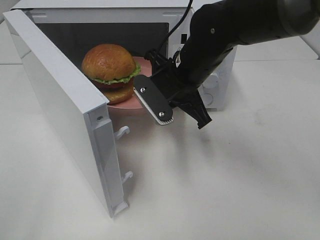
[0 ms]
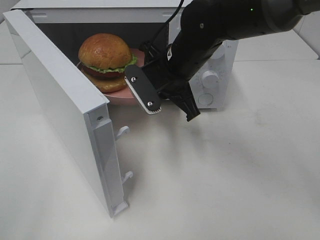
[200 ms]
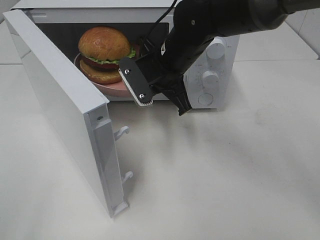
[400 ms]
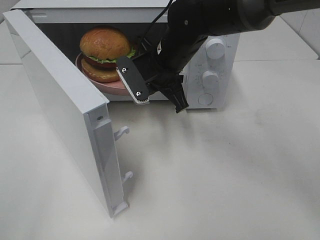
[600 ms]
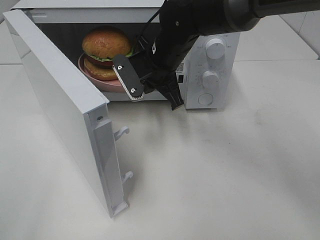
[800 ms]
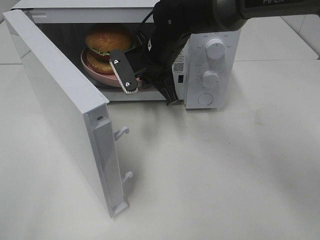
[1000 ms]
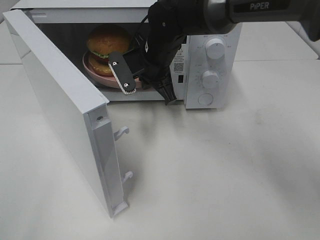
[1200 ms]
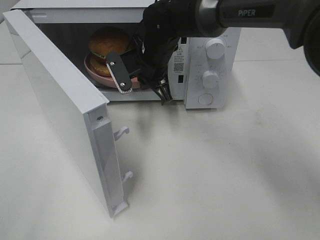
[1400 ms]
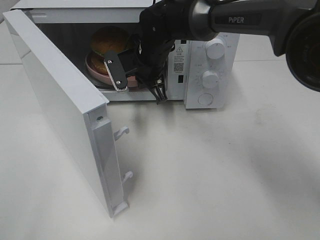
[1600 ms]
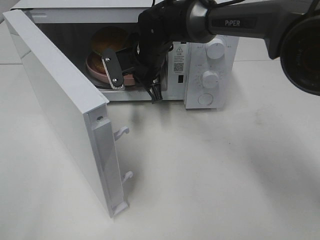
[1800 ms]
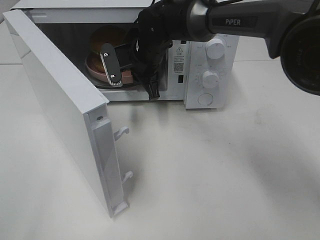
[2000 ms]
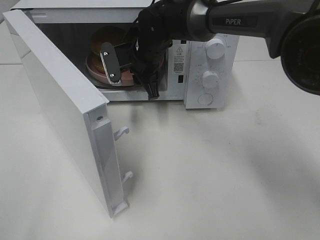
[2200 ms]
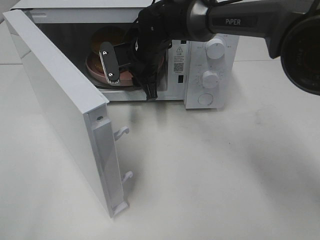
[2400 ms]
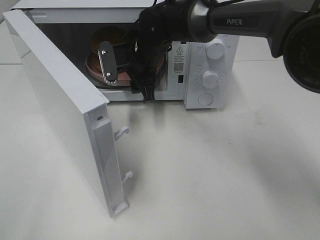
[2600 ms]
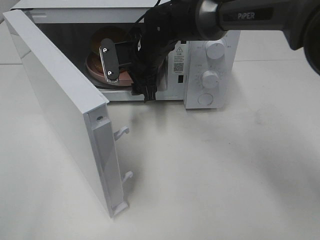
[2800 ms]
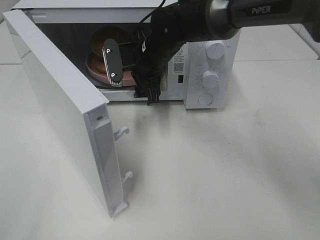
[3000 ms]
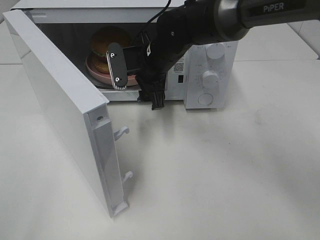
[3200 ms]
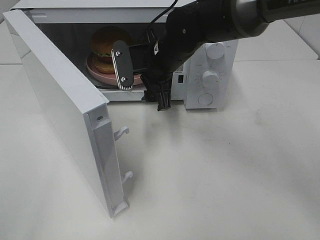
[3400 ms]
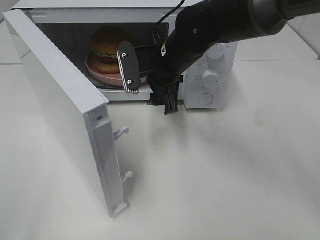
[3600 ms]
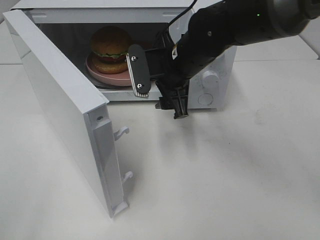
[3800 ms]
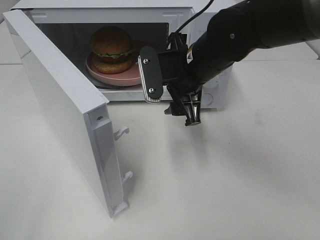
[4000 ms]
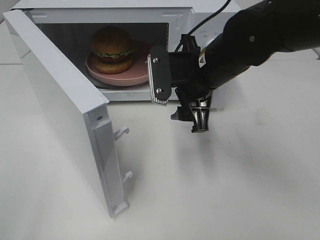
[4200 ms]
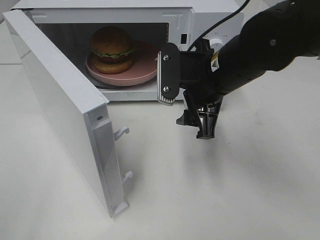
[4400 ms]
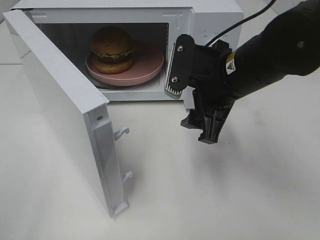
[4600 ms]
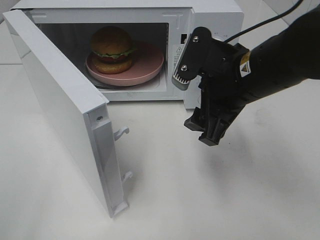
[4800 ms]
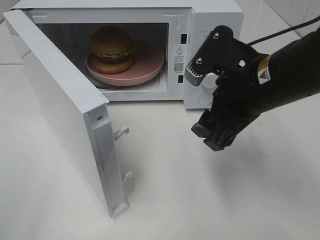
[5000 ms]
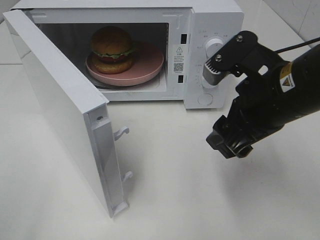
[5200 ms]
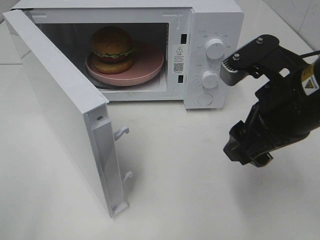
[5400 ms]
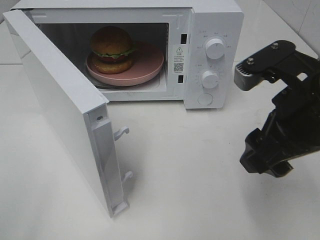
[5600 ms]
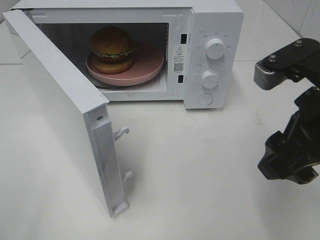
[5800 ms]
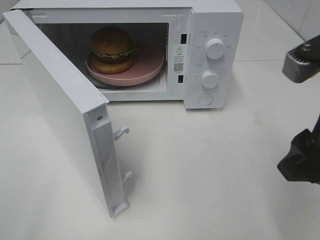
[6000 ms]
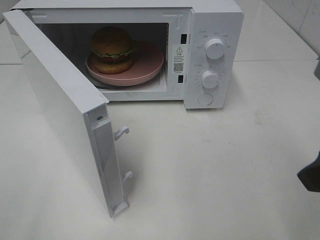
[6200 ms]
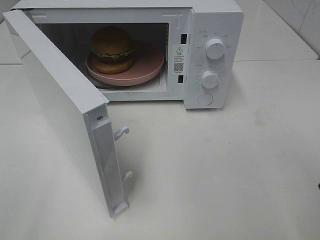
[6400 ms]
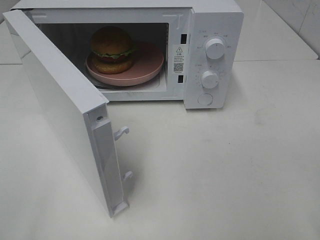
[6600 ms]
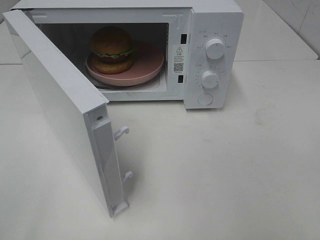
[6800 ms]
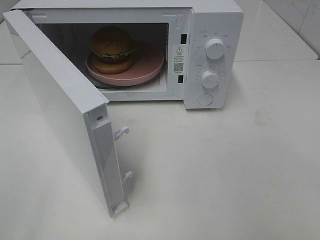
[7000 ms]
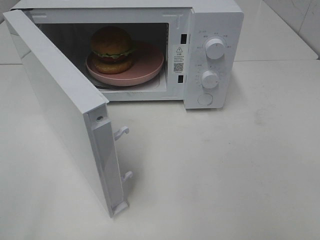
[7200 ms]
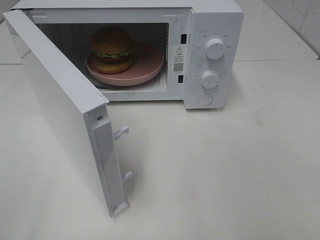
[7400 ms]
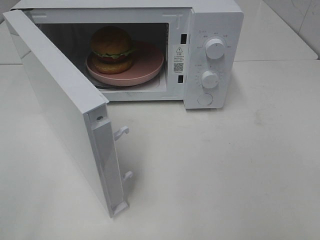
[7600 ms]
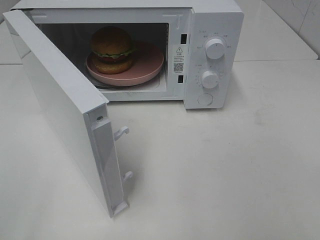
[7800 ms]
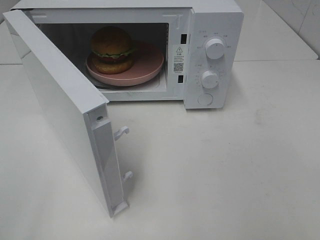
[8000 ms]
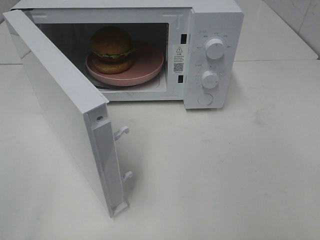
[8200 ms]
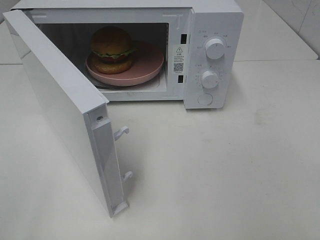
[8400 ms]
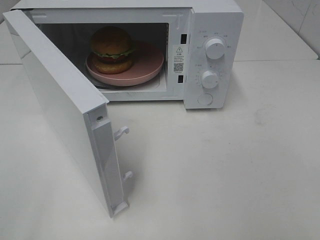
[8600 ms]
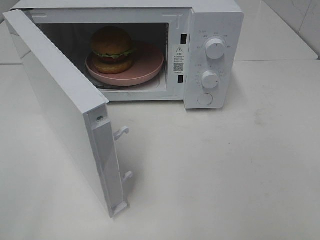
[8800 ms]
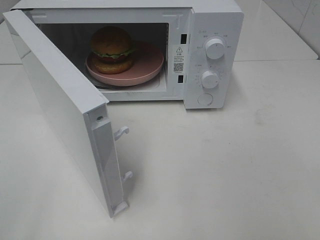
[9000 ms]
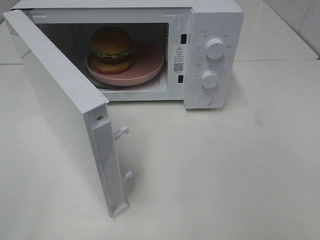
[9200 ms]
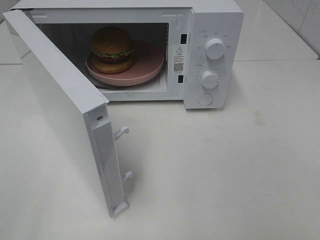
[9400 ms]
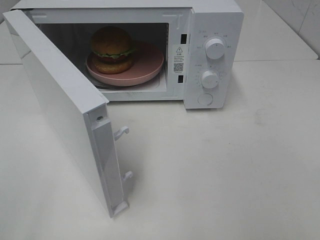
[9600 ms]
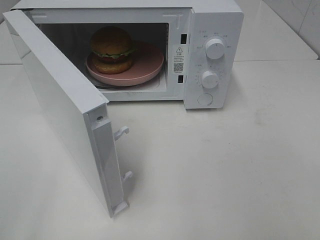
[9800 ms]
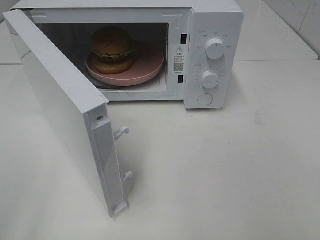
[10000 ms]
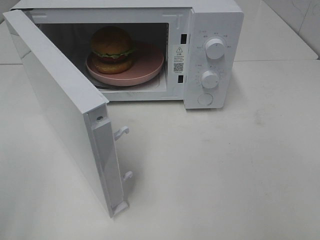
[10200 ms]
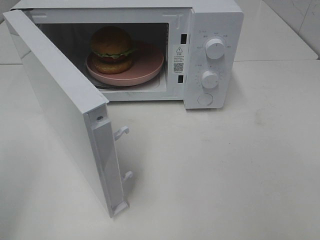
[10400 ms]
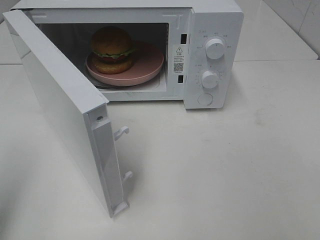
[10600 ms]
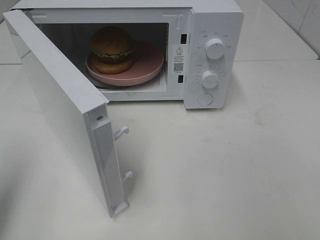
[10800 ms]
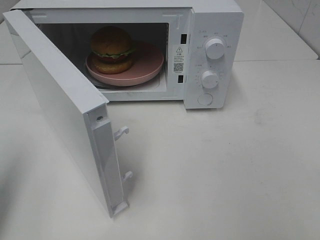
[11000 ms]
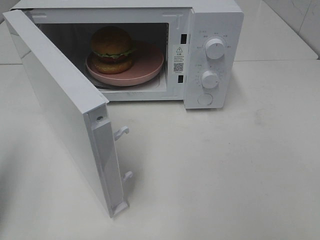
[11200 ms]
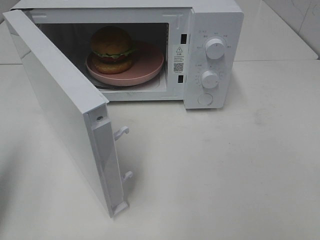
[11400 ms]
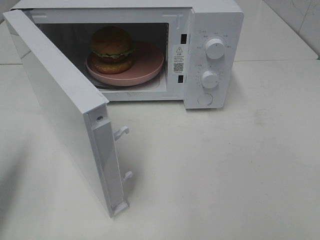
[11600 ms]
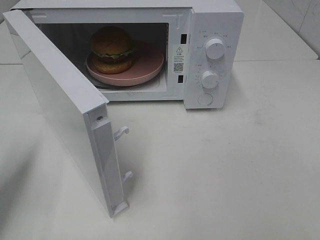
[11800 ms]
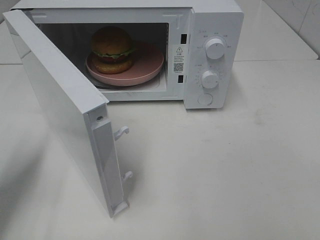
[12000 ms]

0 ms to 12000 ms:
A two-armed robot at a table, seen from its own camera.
Task of the whole recording: Heat the burger.
Step, 0 ms to 2200 ms: Right hand: place the plate in the microwave.
0 ms to 1600 ms: The right gripper travels forward and to the left by some 10 cm.
1600 ms to 3000 ms: The right gripper opens.
3000 ms to 4400 ms: The right gripper moves backward and to the right, some 15 cm.
4400 ms to 6000 ms: The right gripper shifts roughly 20 cm backward, to the right and upward.
6000 ms to 7600 ms: The right gripper heads backward and to the right, covering about 20 cm.
7600 ms to 9000 ms: Both grippers stay about where they are.
10400 ms to 12000 ms: The left gripper heads forward and downward, covering about 15 cm, and closes its fingers.

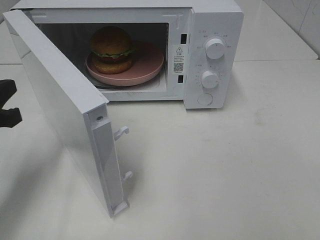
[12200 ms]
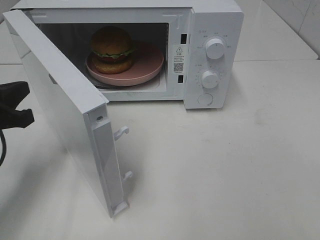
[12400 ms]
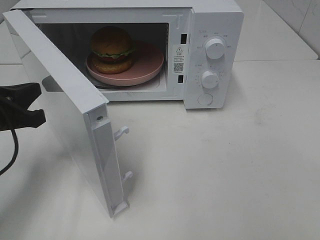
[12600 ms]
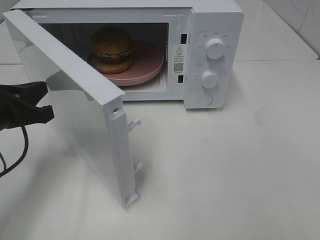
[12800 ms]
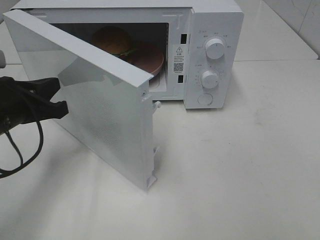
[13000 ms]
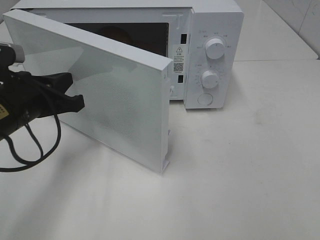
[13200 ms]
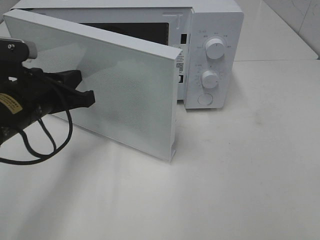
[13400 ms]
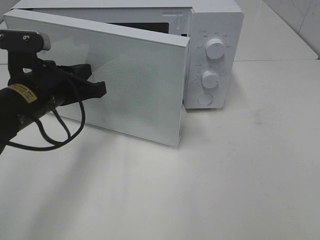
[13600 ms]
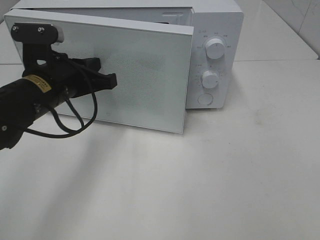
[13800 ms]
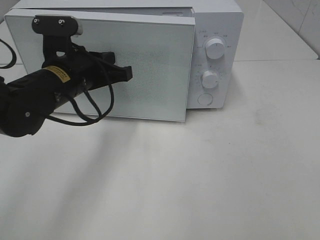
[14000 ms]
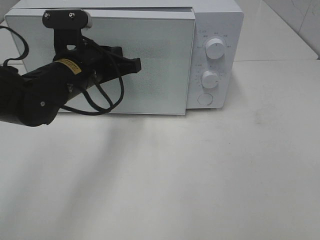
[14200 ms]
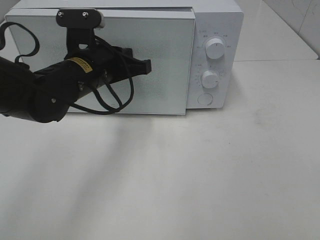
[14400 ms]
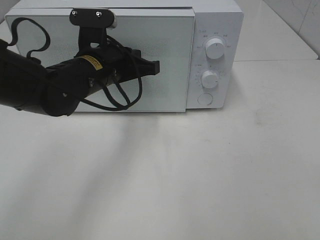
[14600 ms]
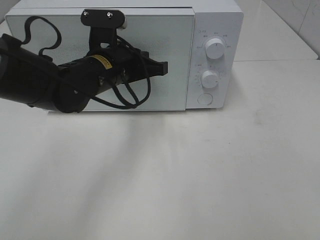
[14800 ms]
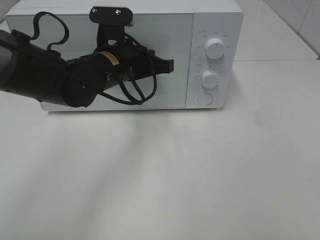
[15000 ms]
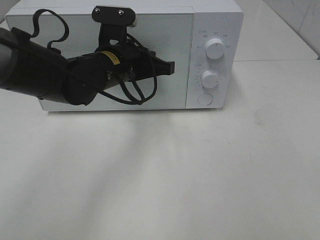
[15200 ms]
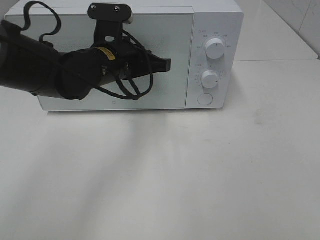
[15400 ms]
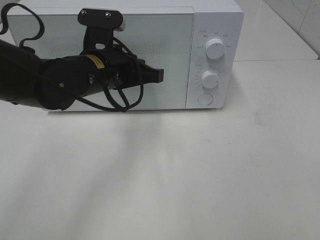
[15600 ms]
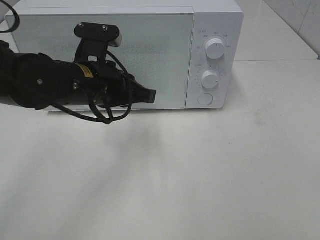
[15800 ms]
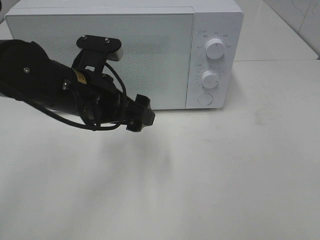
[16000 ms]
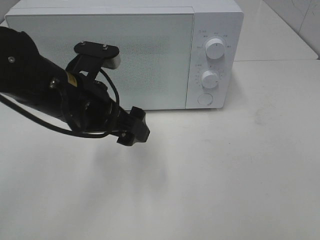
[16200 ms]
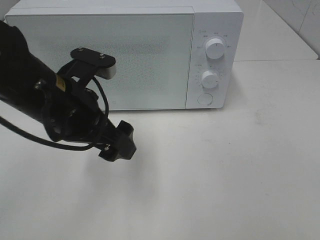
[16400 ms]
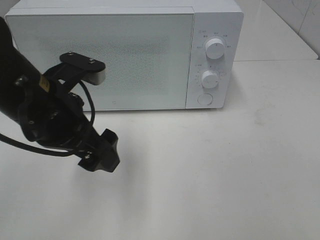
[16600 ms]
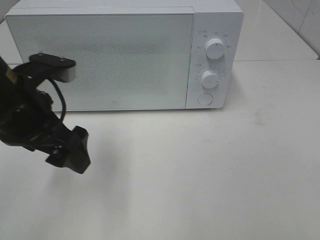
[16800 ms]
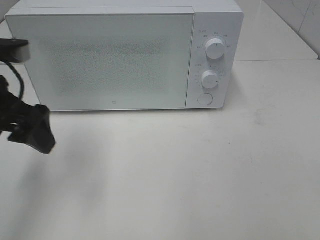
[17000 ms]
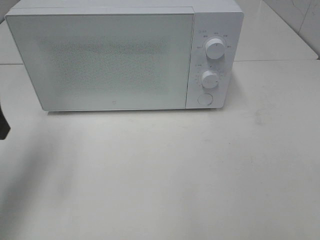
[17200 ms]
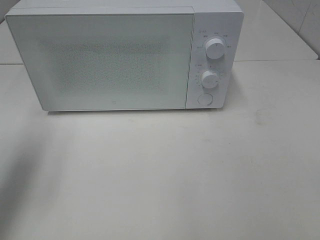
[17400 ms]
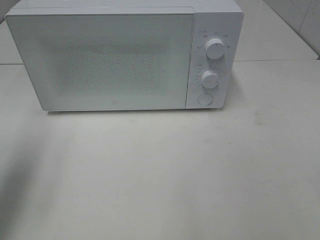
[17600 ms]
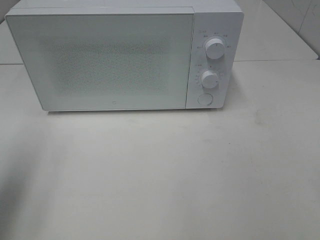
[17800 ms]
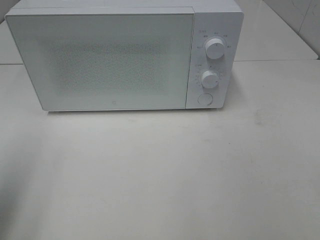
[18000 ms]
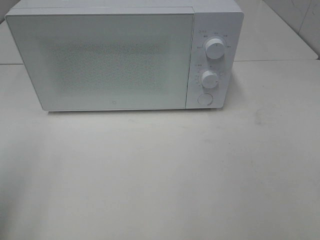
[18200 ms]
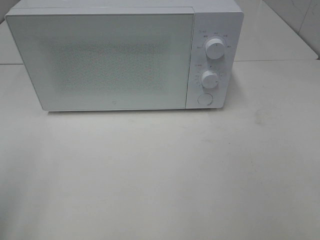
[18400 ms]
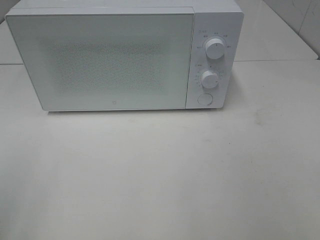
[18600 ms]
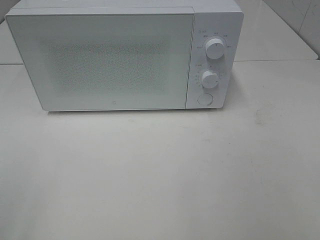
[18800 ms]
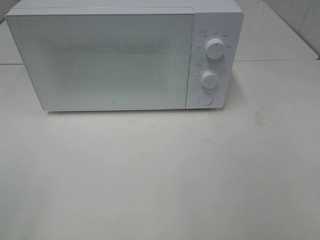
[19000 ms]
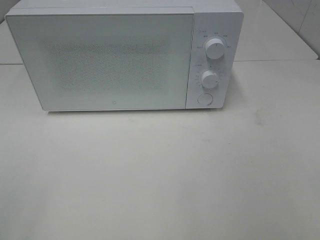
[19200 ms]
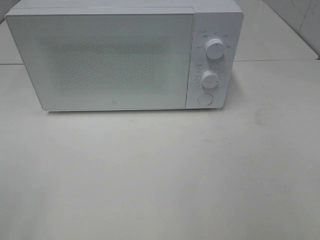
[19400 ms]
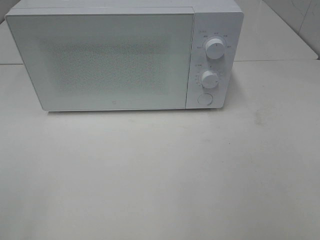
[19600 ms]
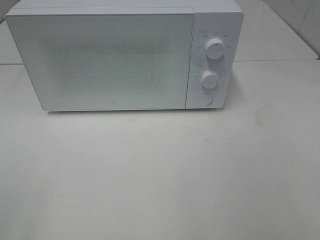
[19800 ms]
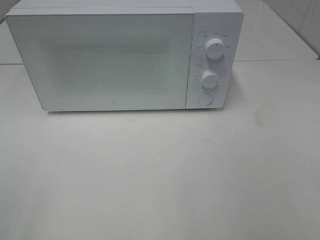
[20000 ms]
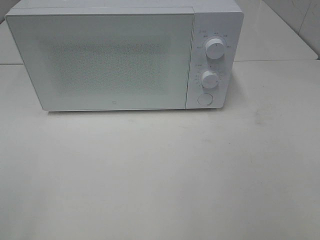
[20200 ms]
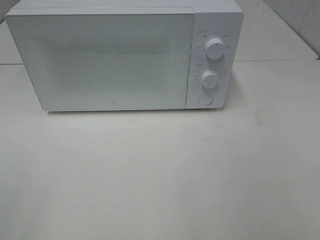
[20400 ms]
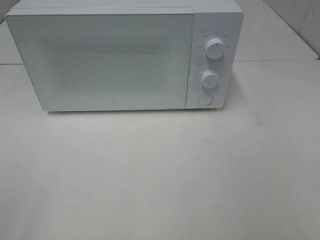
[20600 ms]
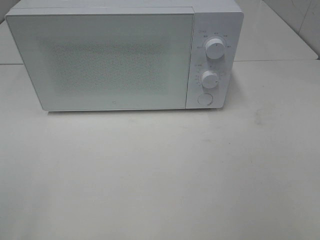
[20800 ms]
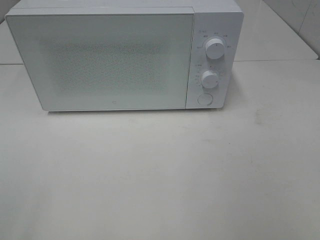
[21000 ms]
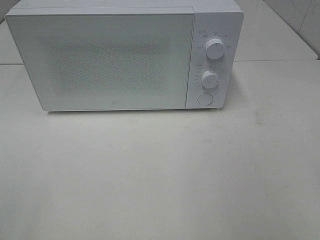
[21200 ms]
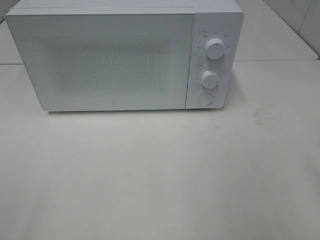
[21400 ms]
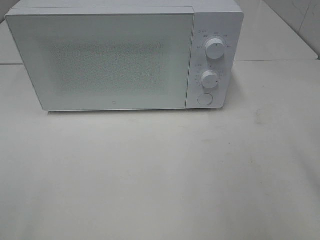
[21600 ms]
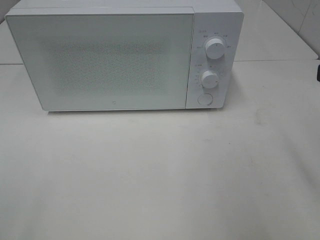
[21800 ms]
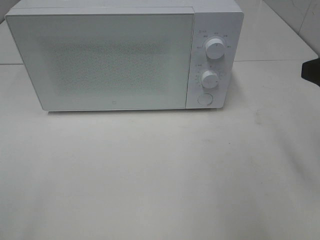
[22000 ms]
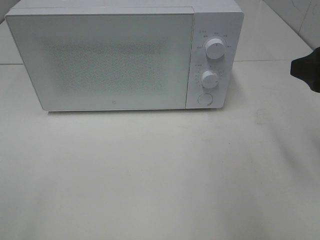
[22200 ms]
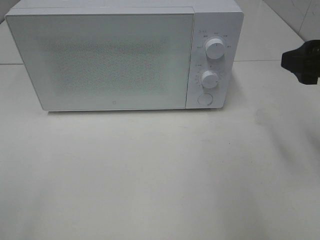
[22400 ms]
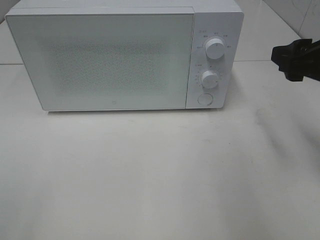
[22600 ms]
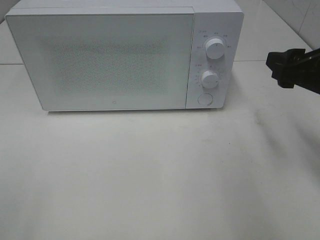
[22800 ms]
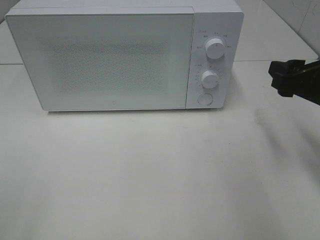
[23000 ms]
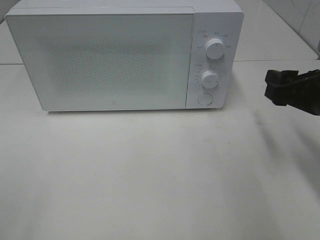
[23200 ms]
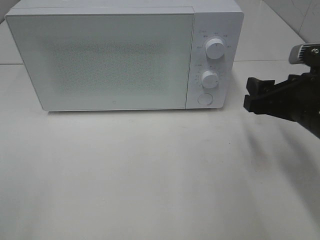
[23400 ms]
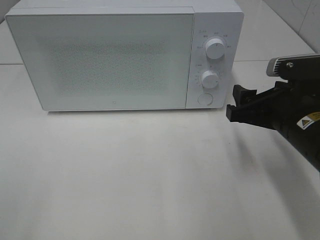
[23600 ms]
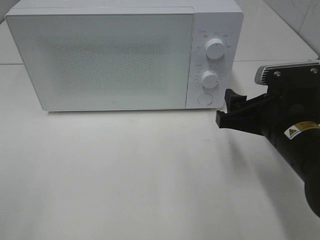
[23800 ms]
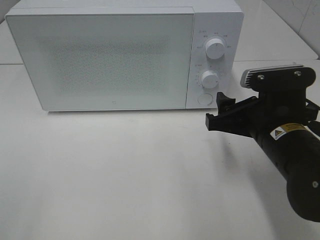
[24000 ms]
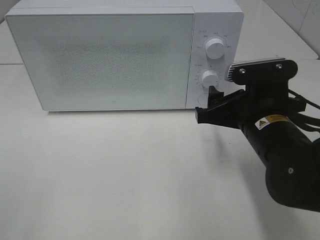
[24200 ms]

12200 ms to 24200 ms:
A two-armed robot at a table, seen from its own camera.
Task of the whole recording: Heat the burger.
Step, 12200 ms to 15400 ms: Left hand: close the microwave door.
12200 ms to 13800 ms: The left gripper moves to the right and forward, roughly 15 cm.
13800 ms to 15200 ms: The left gripper moves to the right and forward, some 10 cm.
15200 ms to 16600 ms: The left gripper goes roughly 15 cm backward and to the left, and opens.
16600 ms to 18200 ms: The left gripper heads to the left and backward, covering some 20 cm.
21200 ms to 22600 ms: The right gripper travels forward by approximately 15 cm.
22600 ms to 24200 ms: The right gripper is displaced to the left and downward by some 15 cm.
